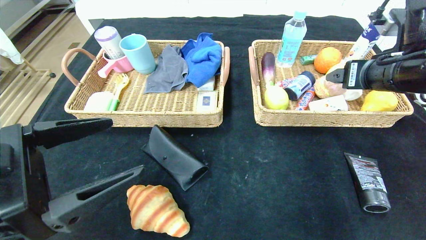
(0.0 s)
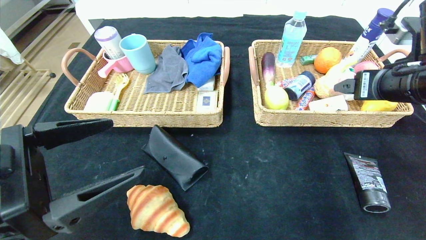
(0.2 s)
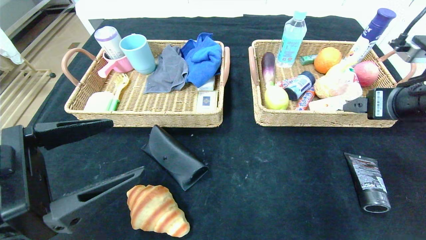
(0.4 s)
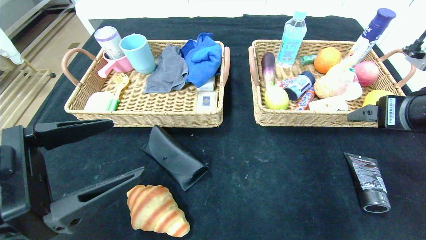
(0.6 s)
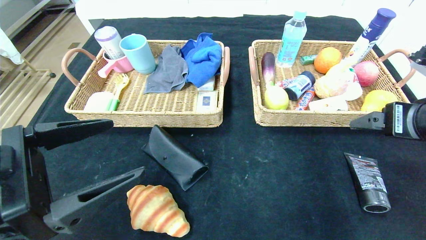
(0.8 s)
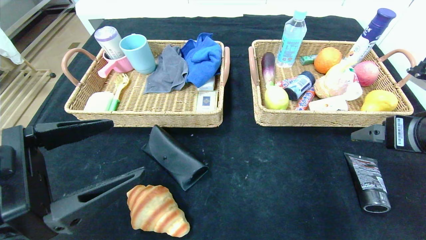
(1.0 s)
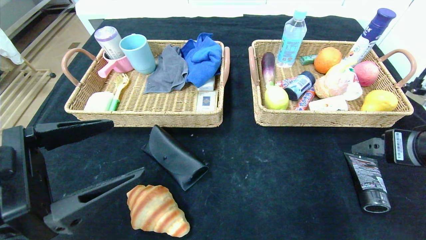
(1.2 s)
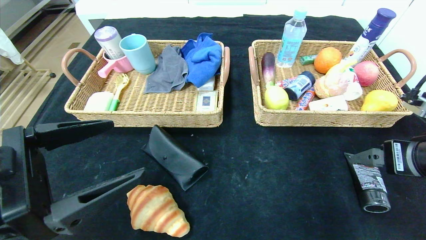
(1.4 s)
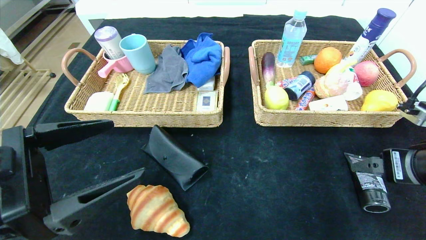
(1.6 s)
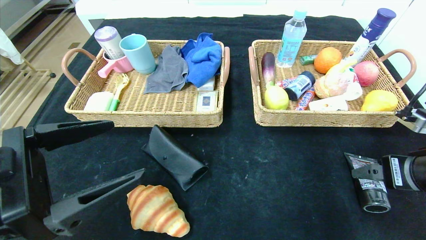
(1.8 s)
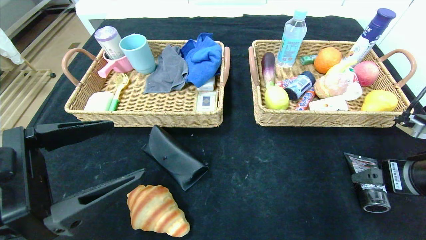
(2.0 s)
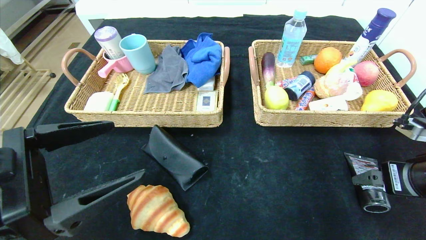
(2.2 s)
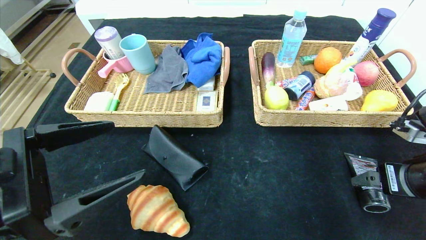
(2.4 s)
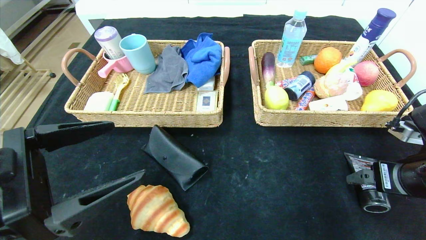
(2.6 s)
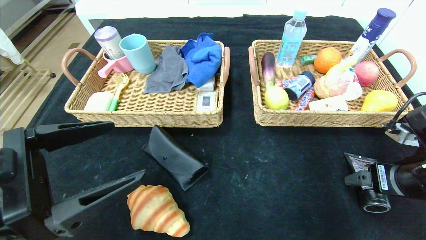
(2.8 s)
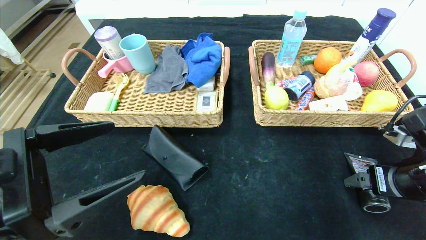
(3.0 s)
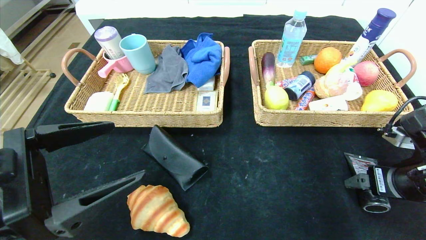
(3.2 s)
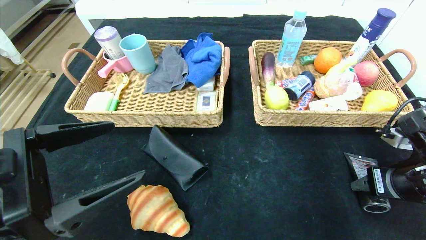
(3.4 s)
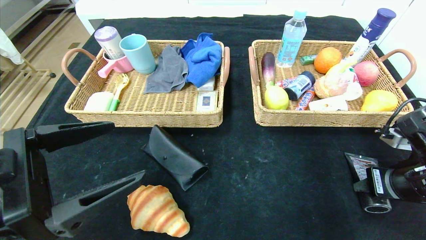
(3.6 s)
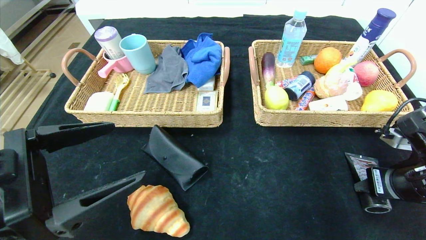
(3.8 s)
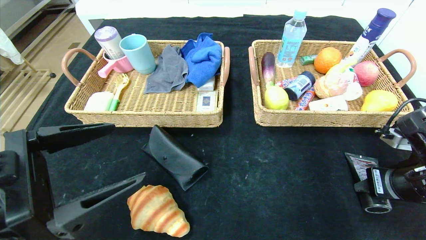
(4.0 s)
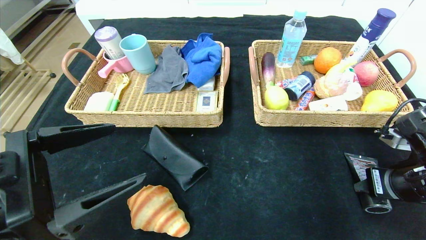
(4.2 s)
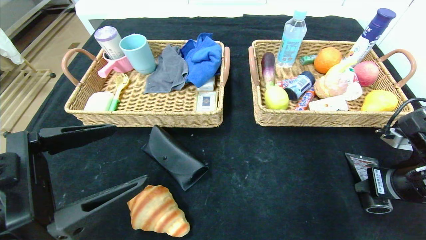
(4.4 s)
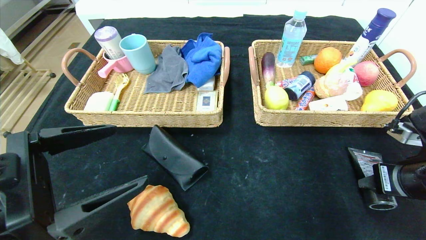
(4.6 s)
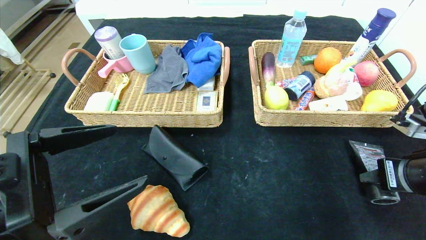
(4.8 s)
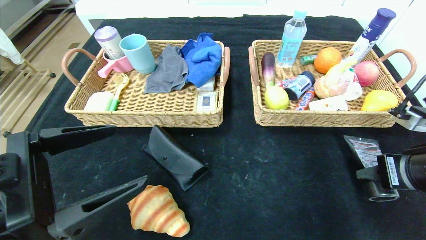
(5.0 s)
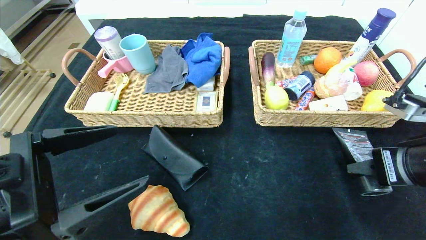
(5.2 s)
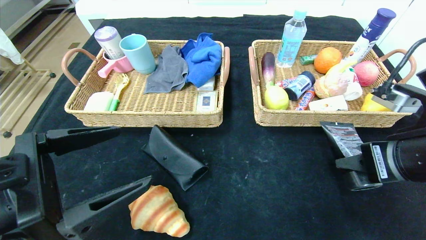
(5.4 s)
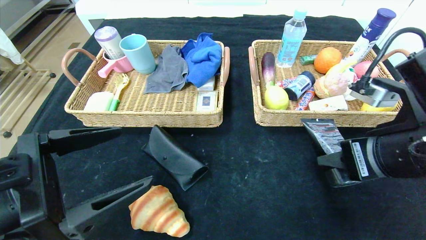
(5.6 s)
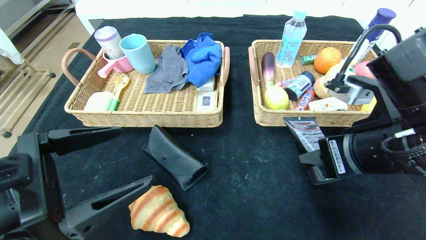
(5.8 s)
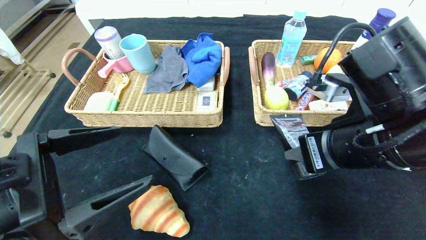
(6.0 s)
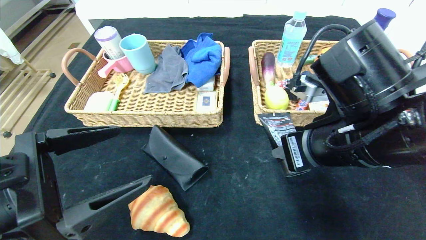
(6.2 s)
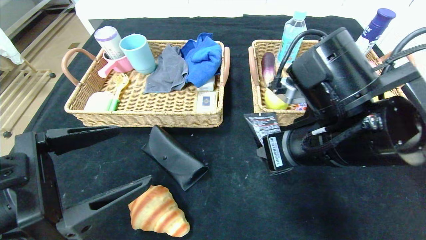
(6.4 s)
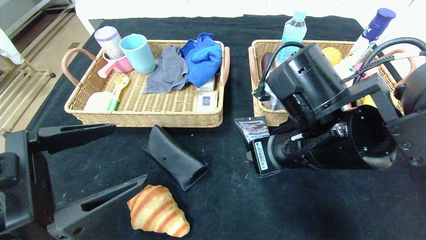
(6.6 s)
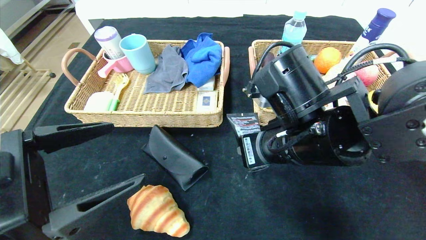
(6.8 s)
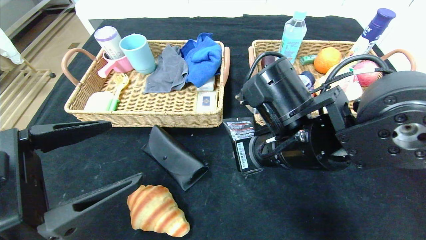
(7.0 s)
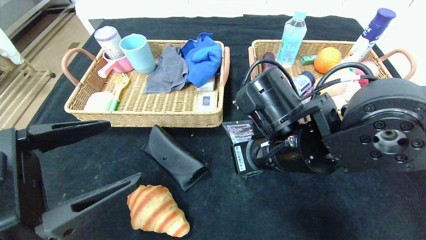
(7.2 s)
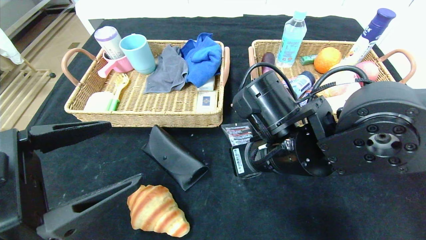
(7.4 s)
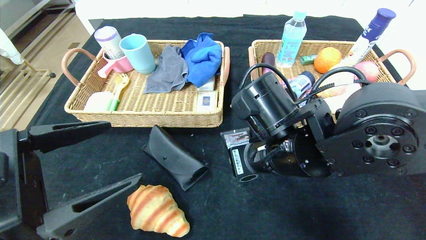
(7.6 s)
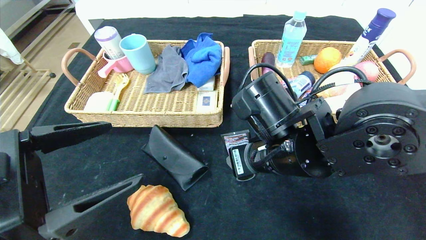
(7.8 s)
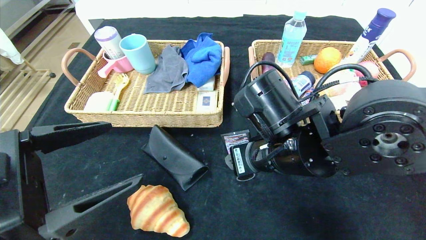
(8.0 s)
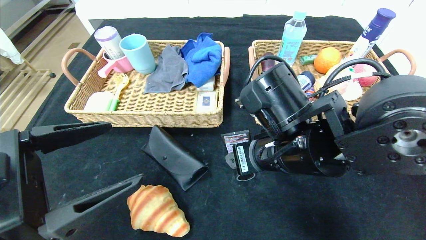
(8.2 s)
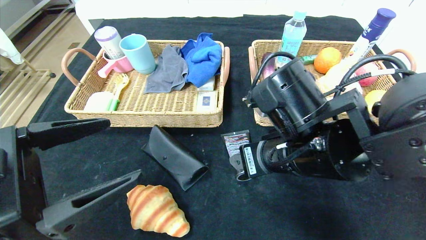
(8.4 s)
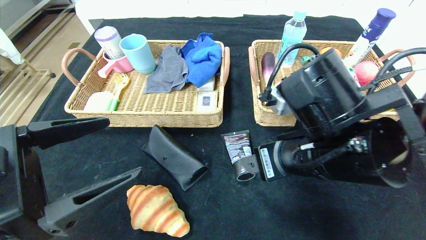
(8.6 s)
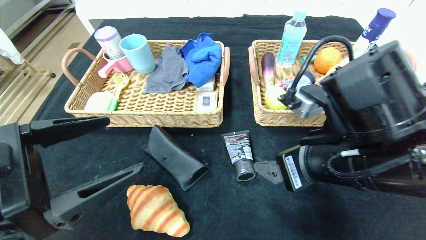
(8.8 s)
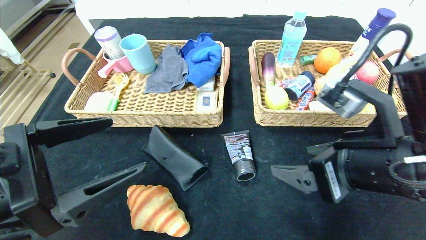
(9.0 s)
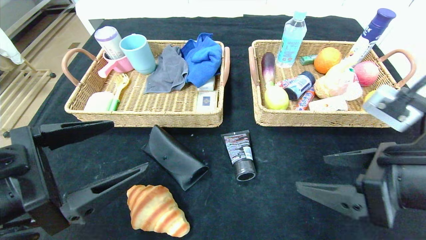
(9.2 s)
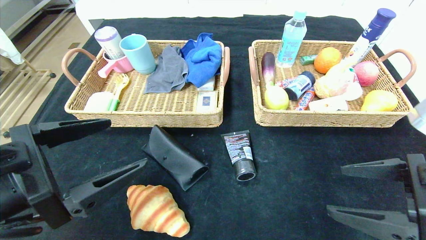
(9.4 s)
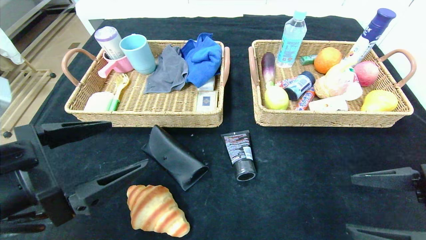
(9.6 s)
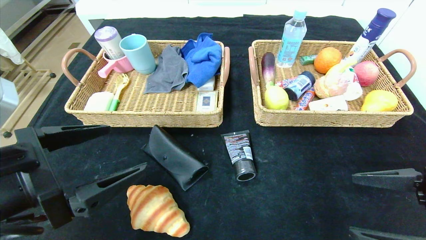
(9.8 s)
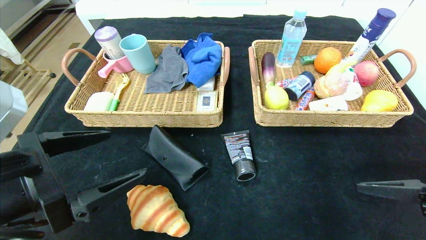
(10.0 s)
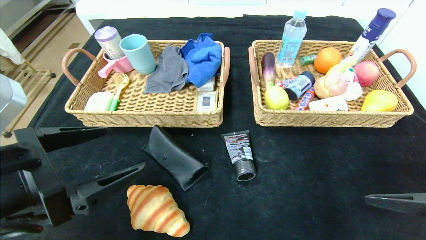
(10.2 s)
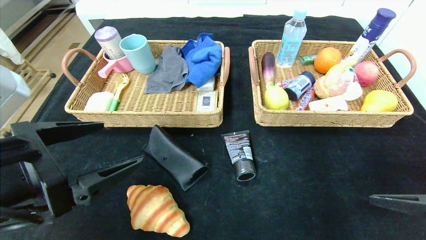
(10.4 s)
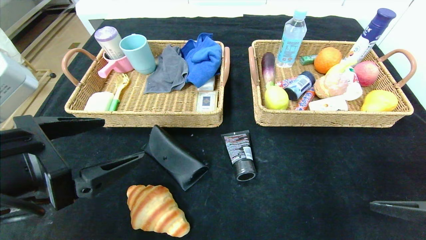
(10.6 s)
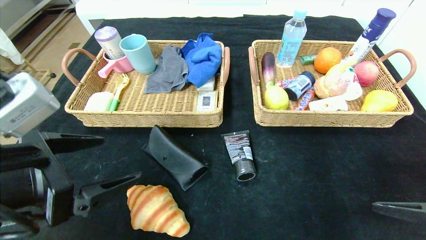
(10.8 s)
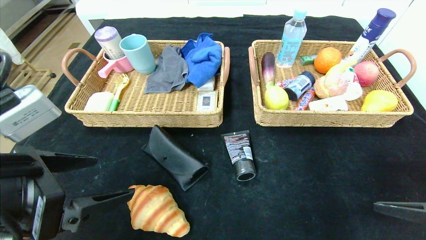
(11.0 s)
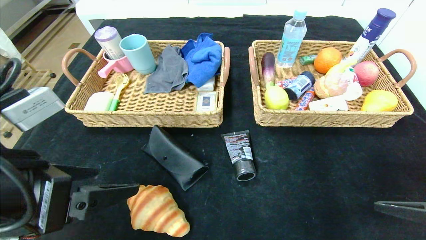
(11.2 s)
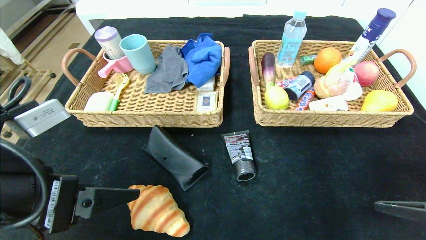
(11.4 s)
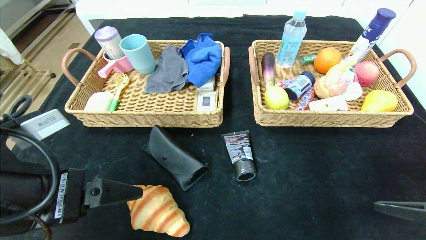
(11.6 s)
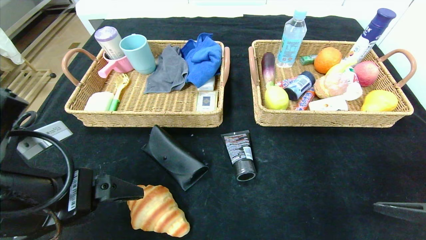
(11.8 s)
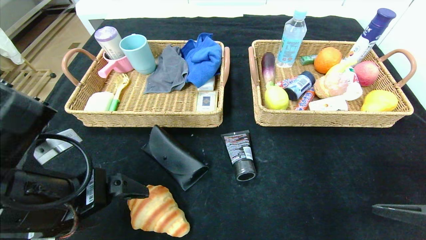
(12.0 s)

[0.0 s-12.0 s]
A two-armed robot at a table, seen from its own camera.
Step, 0.0 to 7.8 s: Place the soft cleanser in the center of the table.
0.0 to 1.6 s: The right gripper goes about 15 cm backward and downward.
1.6 to 3.0 s: The grippers move only a little.
3.0 to 4.4 s: The right gripper closes its fingers.
4.4 to 6.0 s: The right gripper goes some 15 cm to the left and upward.
6.0 to 7.6 s: The right gripper goes approximately 10 cm to the left.
7.6 to 9.0 s: The right gripper goes some 15 cm to the right and backward, and opens up.
9.0 to 10.4 s: The right gripper moves to the right, backward and downward, roughly 15 cm.

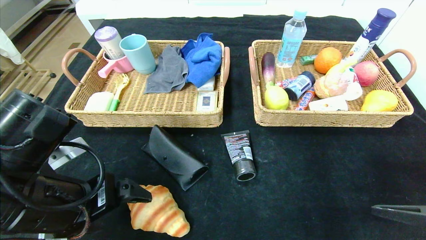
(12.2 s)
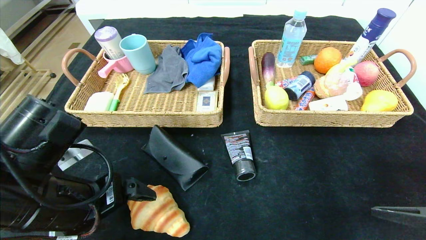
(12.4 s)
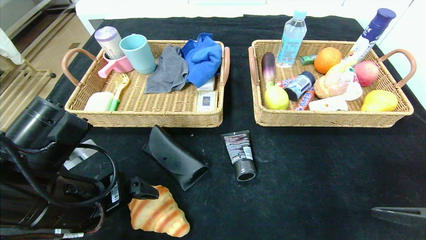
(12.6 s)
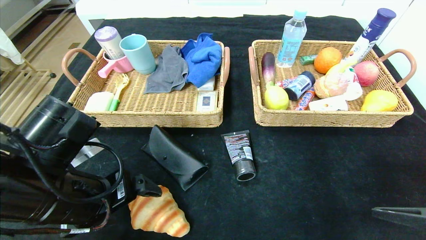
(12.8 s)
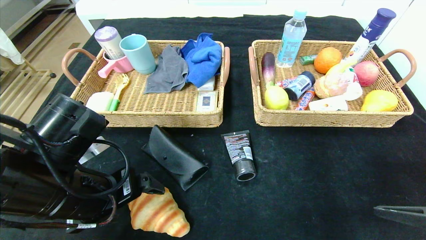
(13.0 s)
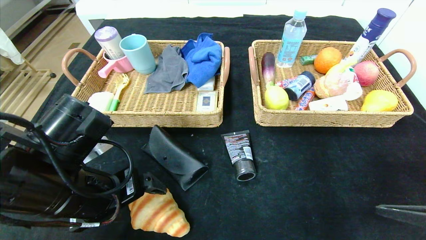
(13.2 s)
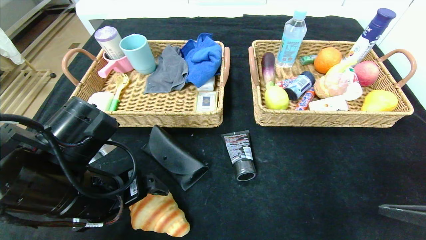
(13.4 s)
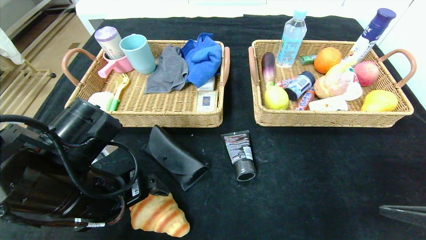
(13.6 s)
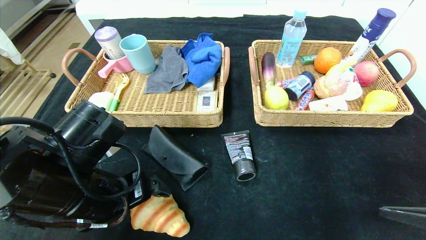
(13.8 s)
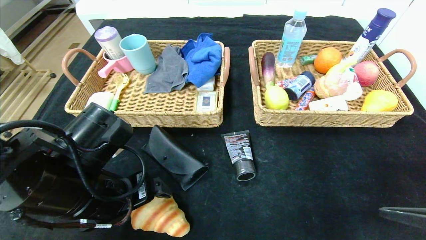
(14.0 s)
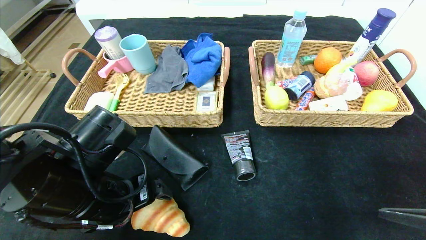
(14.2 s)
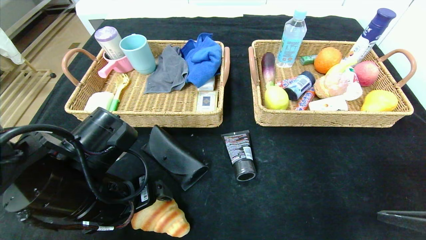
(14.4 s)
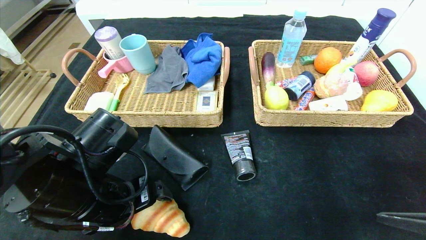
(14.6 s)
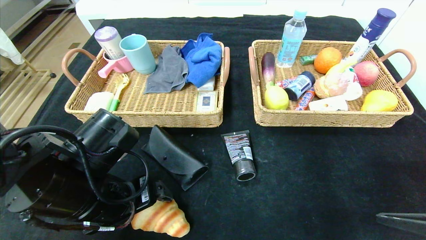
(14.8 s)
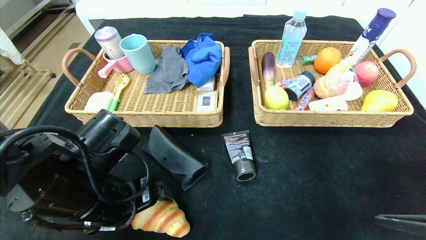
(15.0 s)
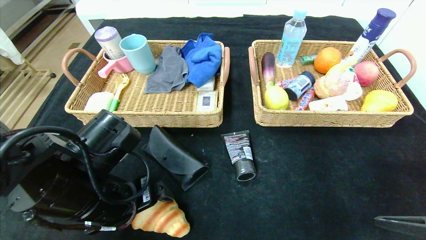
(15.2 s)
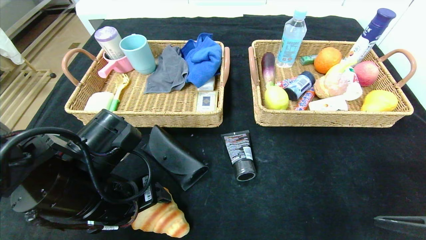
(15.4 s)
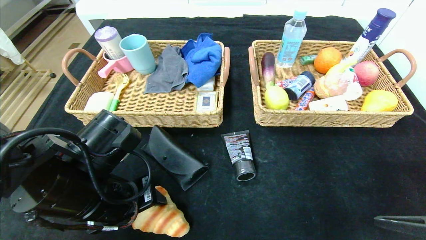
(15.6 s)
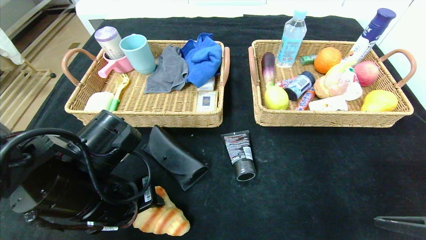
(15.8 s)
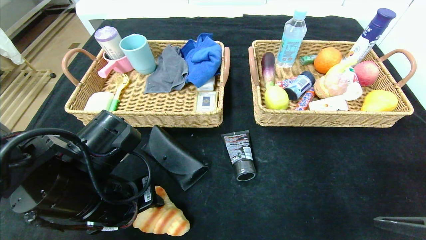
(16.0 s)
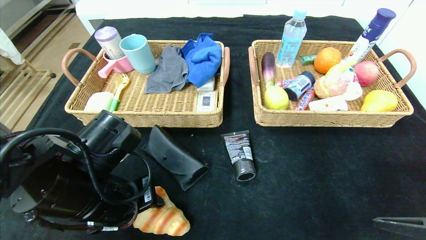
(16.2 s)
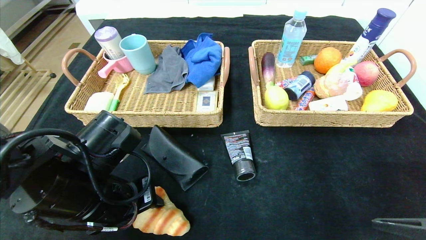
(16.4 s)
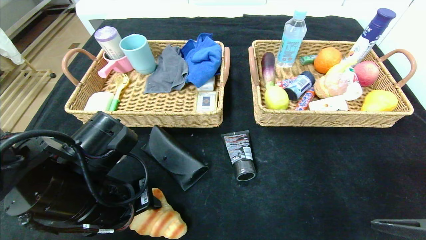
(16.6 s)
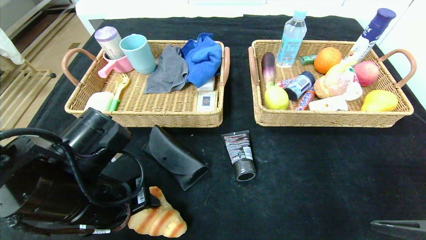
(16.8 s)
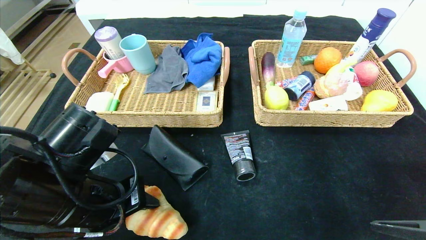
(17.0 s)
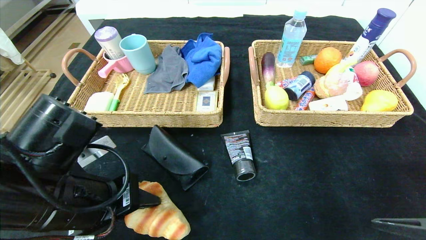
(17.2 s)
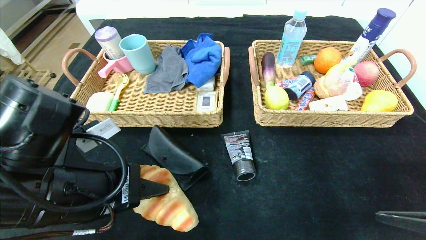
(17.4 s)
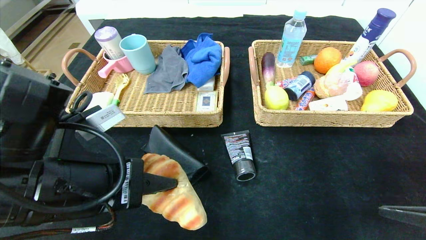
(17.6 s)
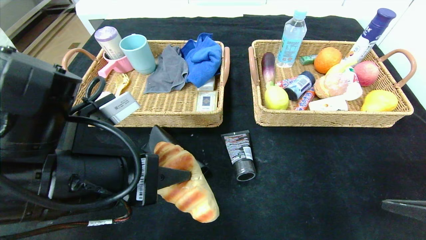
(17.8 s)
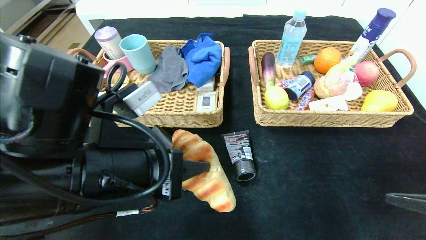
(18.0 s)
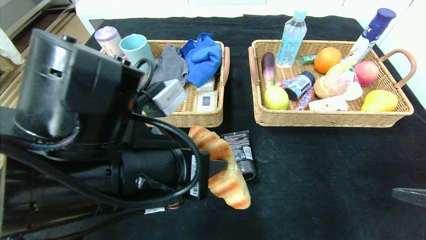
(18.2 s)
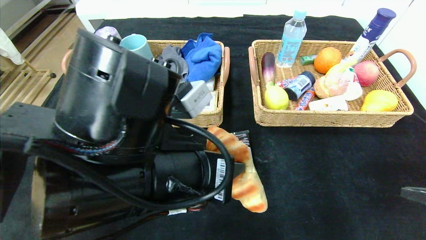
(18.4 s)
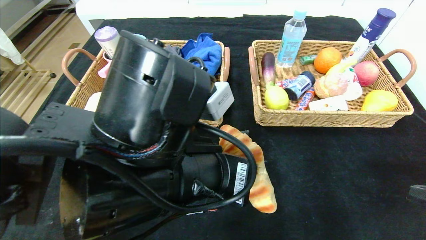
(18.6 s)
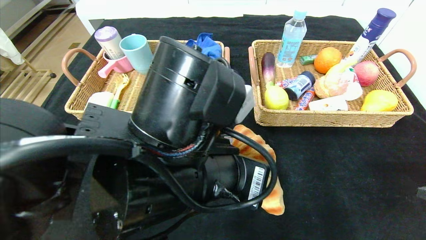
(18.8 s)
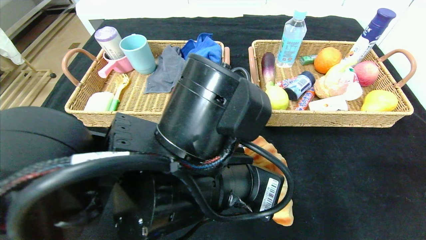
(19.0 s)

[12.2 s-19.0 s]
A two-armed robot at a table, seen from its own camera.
12.2 to 15.0 s: There are only small adjustments of the grippers.
15.0 to 16.2 s: The left gripper closes up.
16.2 to 17.6 s: The left gripper travels upward by about 5 cm.
17.6 to 19.0 s: The left gripper heads to the right, covering about 15 cm.
